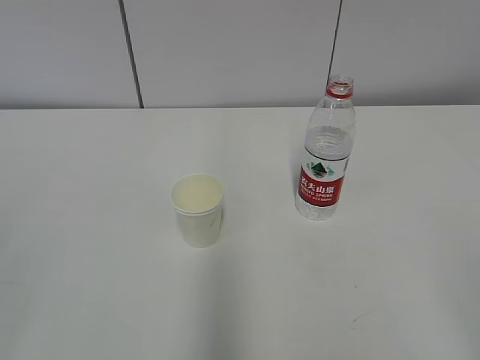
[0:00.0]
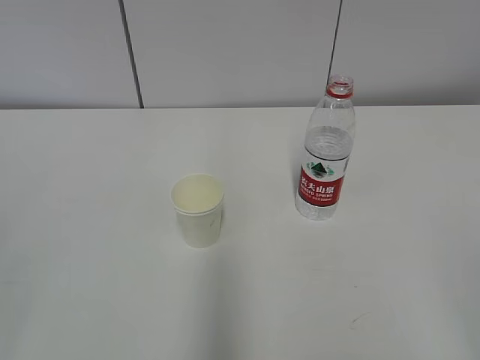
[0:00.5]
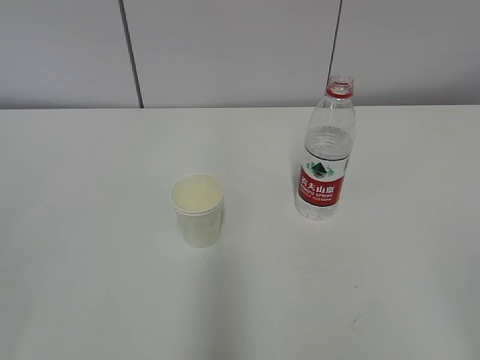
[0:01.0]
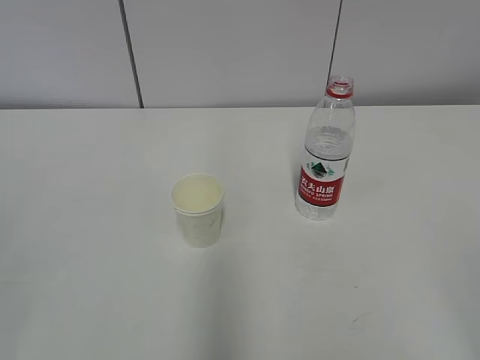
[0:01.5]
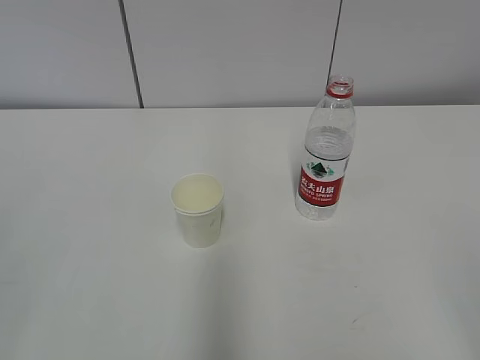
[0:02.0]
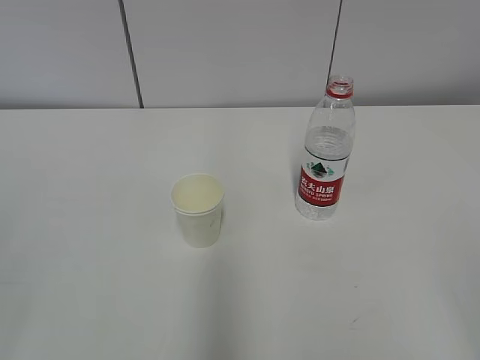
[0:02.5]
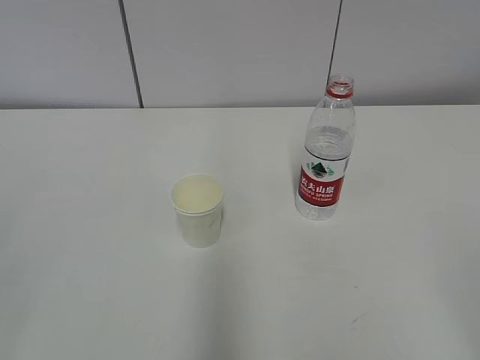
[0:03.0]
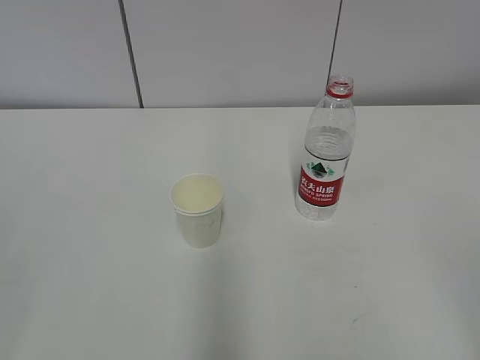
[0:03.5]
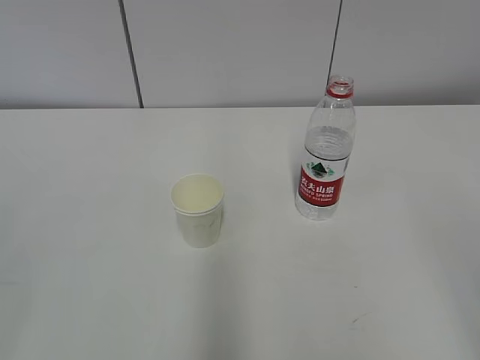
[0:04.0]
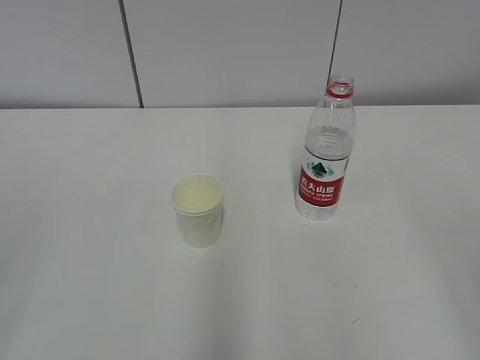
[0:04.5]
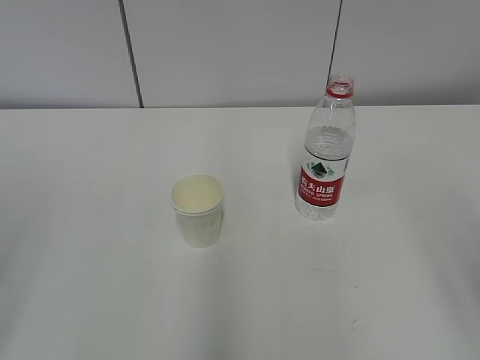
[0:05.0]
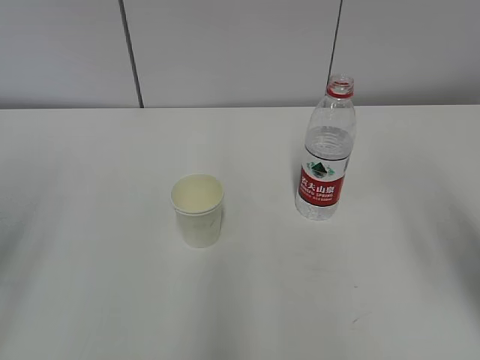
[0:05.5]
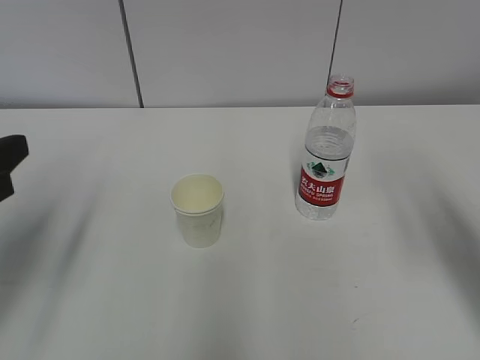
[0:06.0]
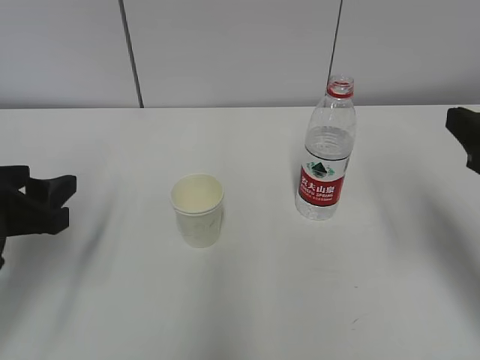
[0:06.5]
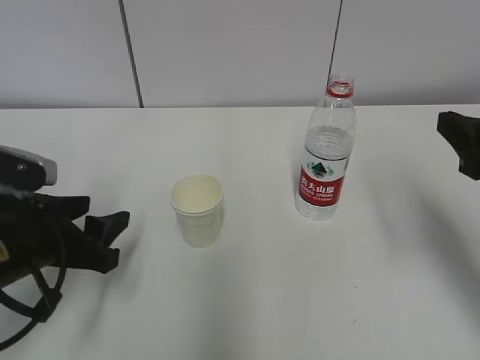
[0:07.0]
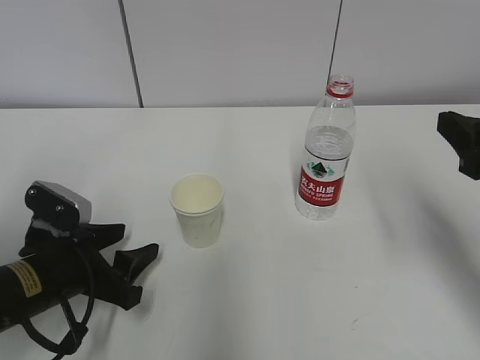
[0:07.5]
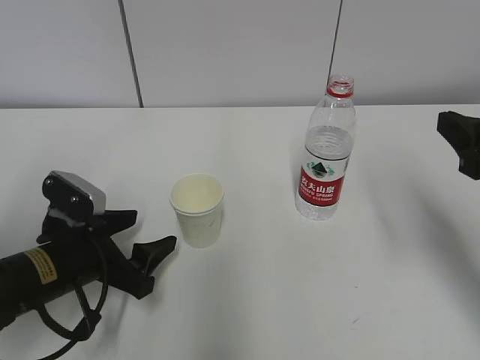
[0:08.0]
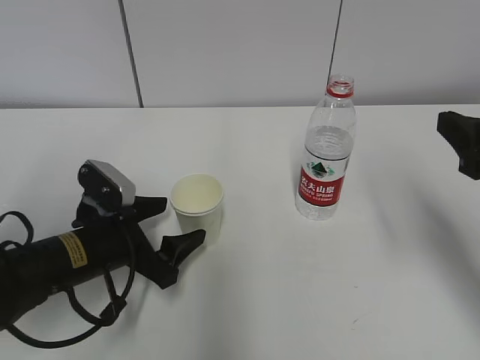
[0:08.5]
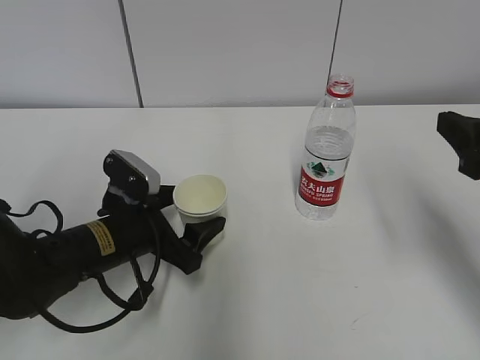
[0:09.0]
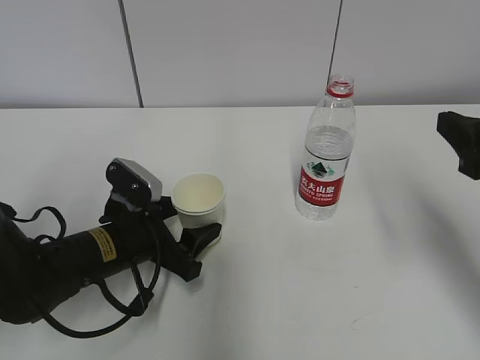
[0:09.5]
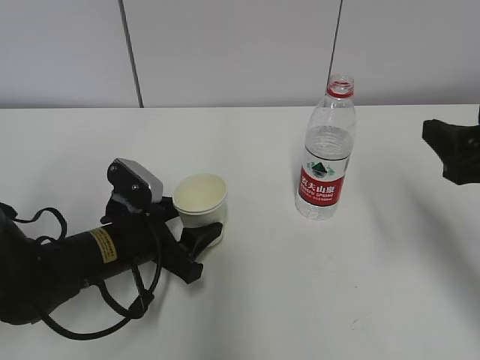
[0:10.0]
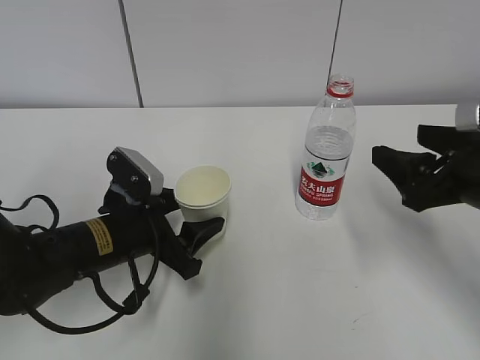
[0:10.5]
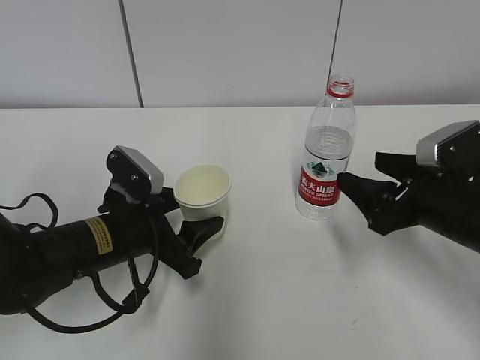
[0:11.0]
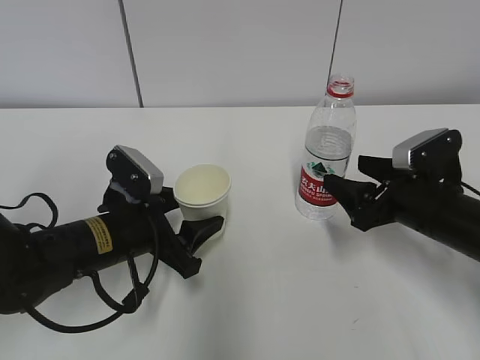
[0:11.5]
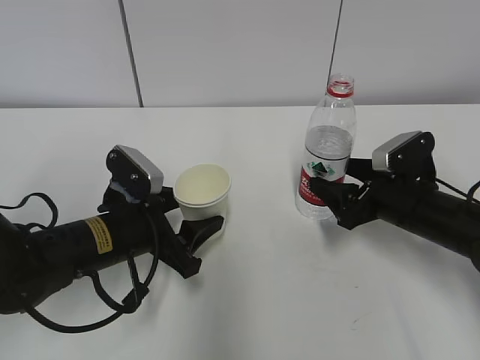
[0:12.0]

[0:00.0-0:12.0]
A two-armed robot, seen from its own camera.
Step, 0:00.0 to 0:08.0: Grab the paper cup with the left hand.
Step, 0:08.5 to 0:11.0: Grab the water bottle with the right hand.
0:04.0 to 0:06.0: The grippers both shift forward by approximately 20 cm.
0:06.0 to 0:08.0: The left gripper heads downward, to the right and forward, covering approximately 20 cm, and opens up.
0:08.0 to 0:10.0: The left gripper moves approximately 5 cm, and closes.
0:10.0 to 0:12.0: The right gripper travels downward and forward by approximately 15 cm.

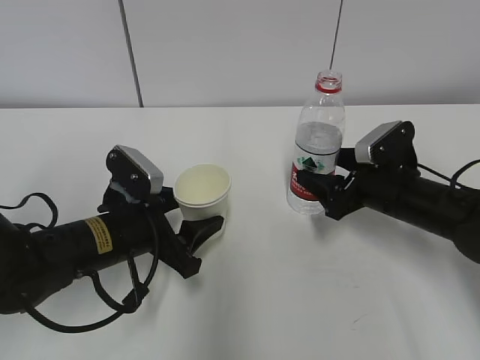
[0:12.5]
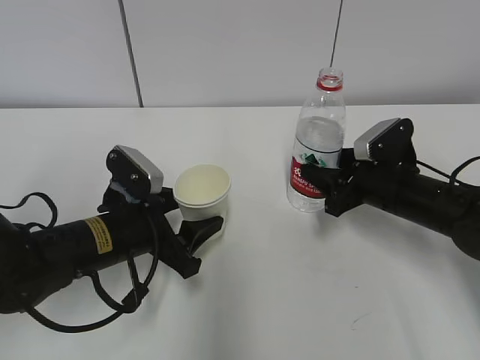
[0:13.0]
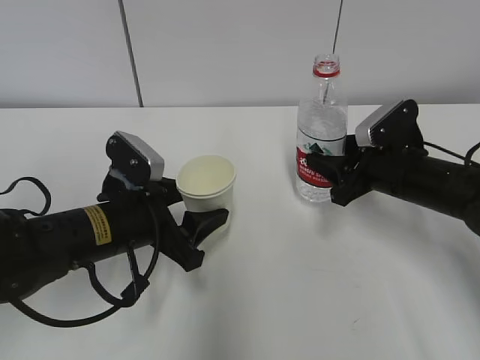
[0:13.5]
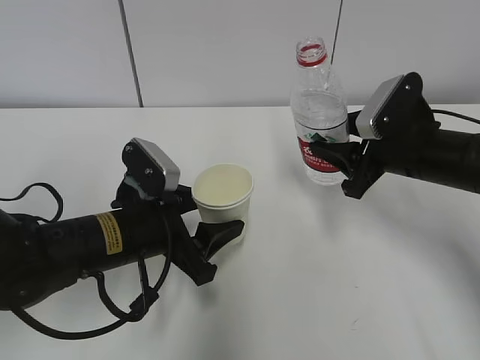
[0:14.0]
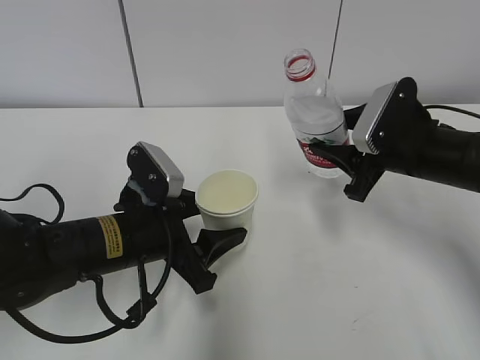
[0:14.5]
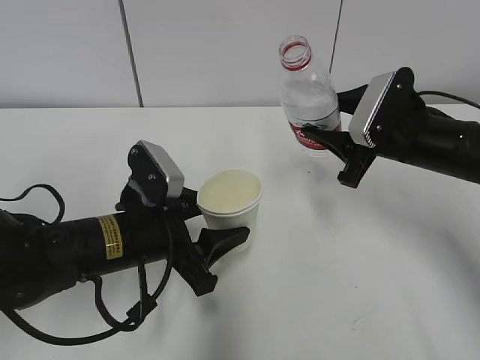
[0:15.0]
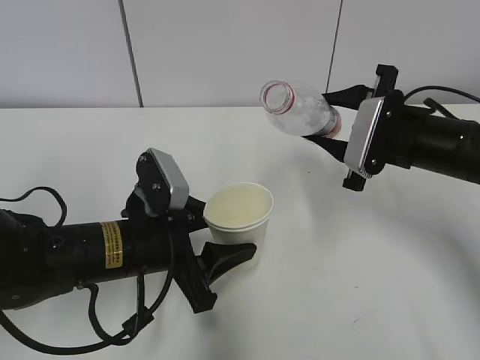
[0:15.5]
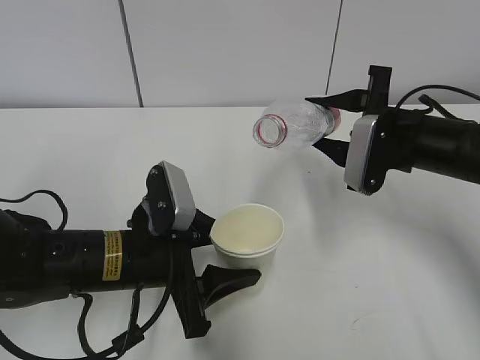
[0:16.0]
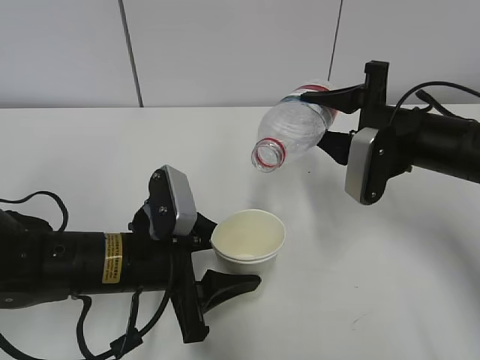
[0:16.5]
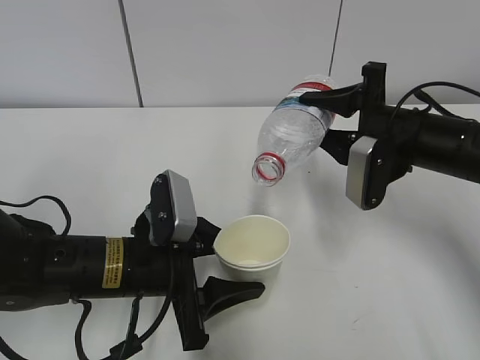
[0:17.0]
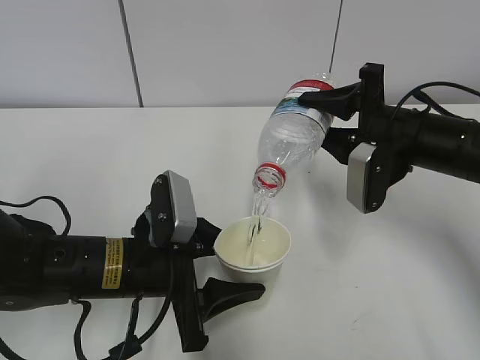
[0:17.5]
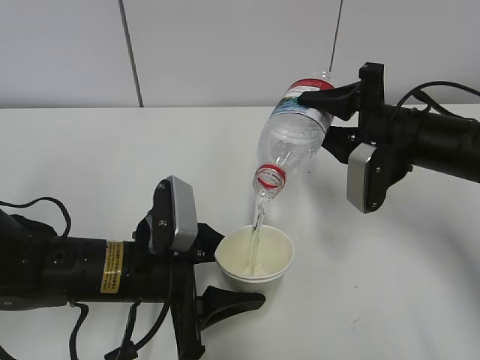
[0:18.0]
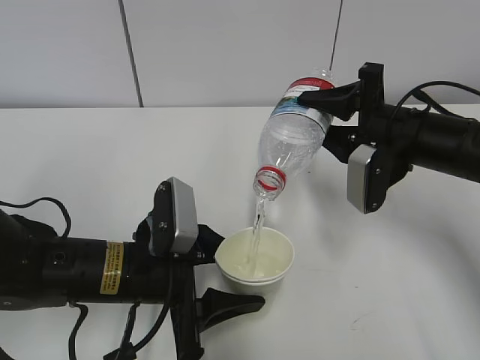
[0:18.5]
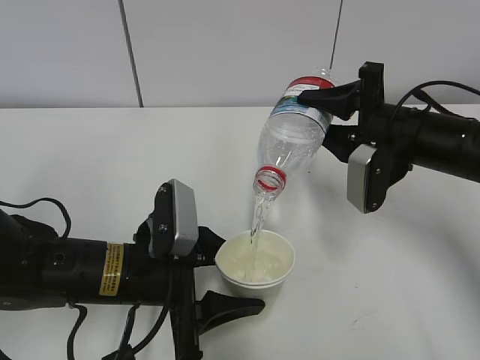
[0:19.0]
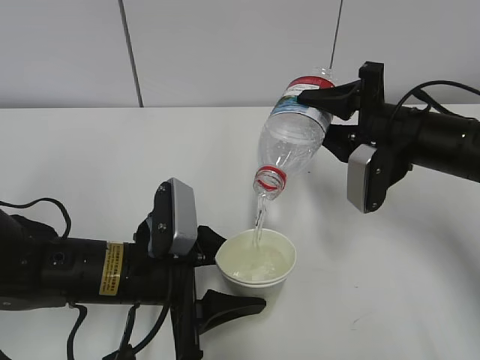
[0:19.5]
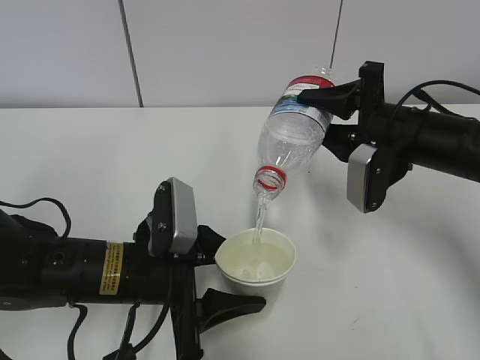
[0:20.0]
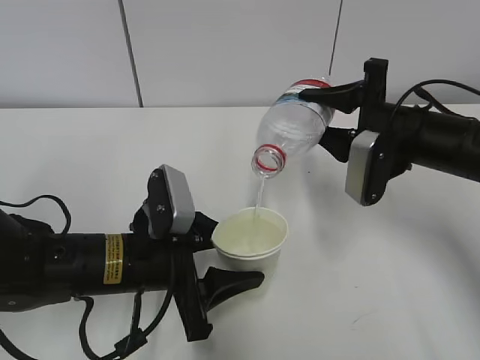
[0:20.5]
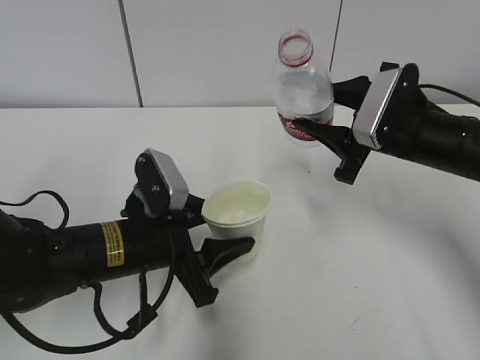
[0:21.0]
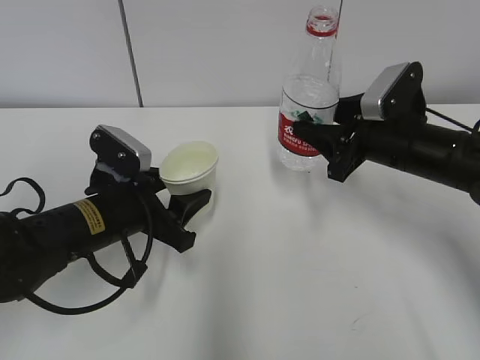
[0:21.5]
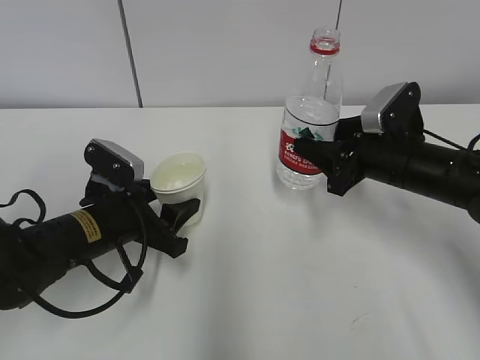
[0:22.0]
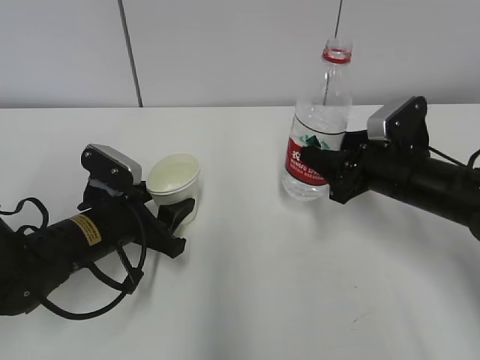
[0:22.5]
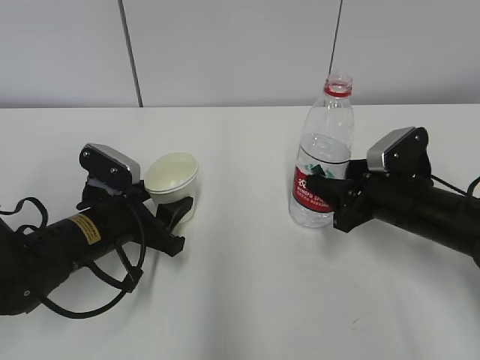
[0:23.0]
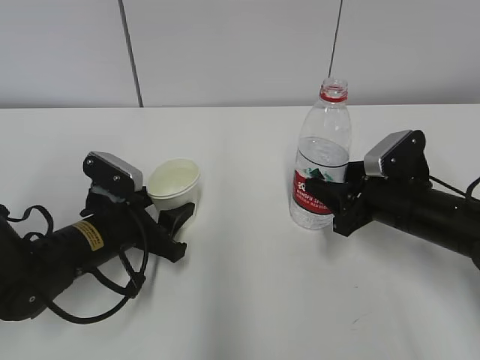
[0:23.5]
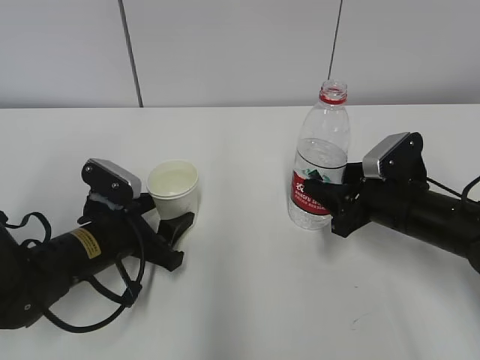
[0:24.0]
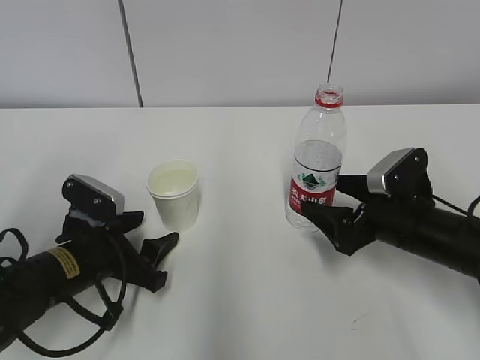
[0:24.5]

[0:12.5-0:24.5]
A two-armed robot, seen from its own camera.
Step, 0:14.5 to 0:17.0: Fill water with the left hand.
Step, 0:14.5 to 0:17.0: Pour water with the right hand.
Step, 0:18.0 to 0:19.5: Place the paper cup with the left hand.
0:12.5 to 0:14.5: The right gripper is displaced upward by approximately 10 cm, and closes its fingers.
0:16.5 to 0:20.5: The grippers stay close to where they were, moving slightly.
0:20.5 to 0:22.5: The left gripper heads forward and to the left, covering roughly 10 cm; the right gripper moves downward, approximately 5 cm.
0:22.5 to 0:24.5: The right gripper changes place by some 5 cm, and opens its fingers. Meanwhile the left gripper opens.

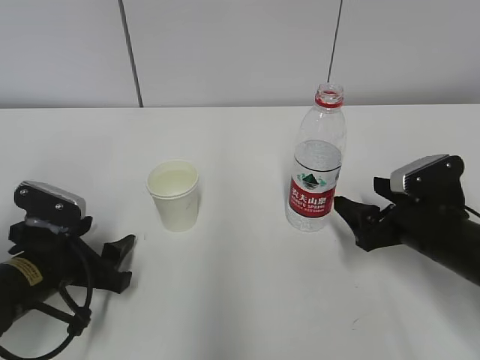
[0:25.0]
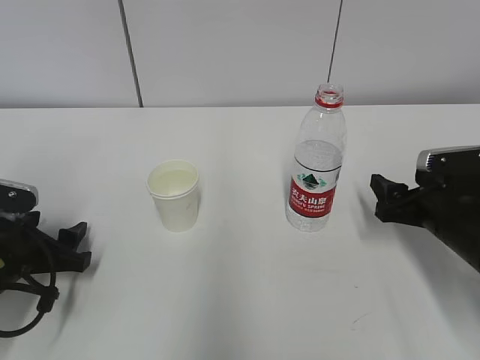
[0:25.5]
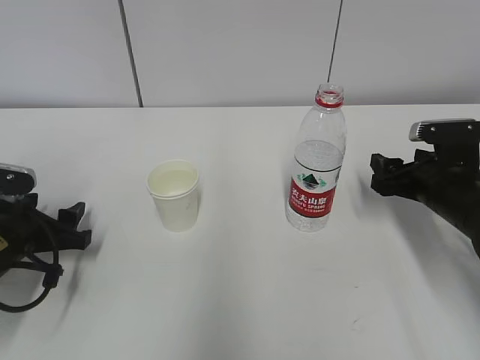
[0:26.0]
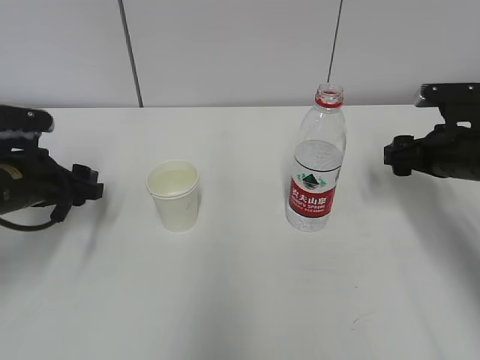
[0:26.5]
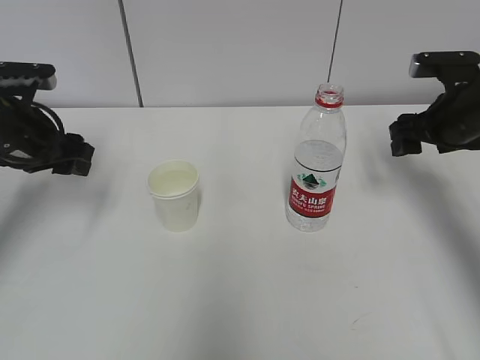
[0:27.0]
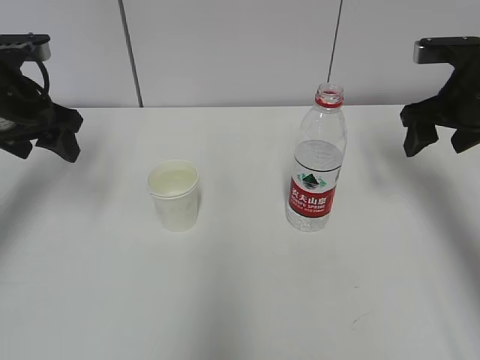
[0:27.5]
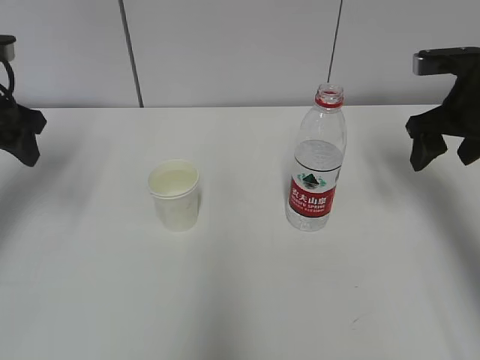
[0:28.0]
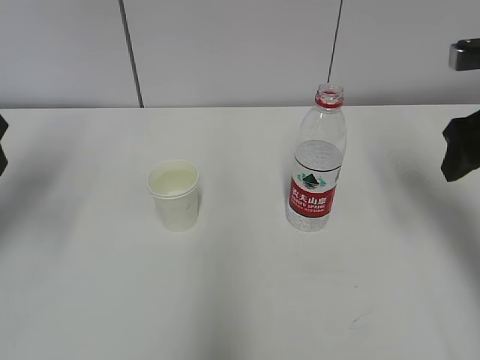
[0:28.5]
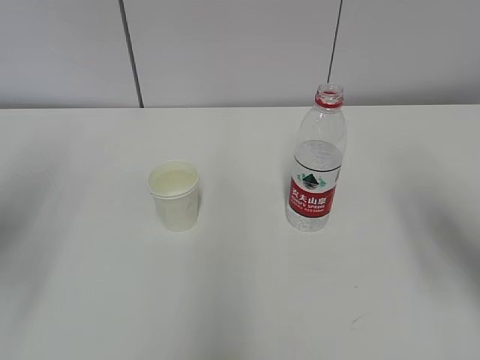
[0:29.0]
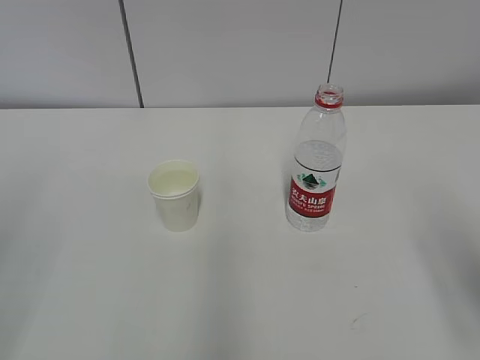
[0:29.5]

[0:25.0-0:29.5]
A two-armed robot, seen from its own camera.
0:25.0 to 0:27.0: The two grippers go roughly 15 cm upward and forward.
0:27.0 to 0:29.5: The two grippers go some 25 cm backward.
